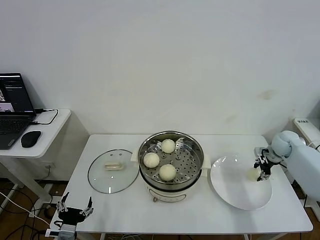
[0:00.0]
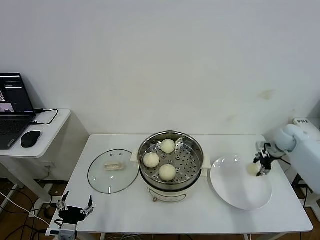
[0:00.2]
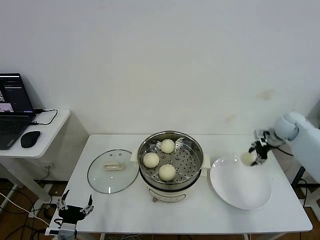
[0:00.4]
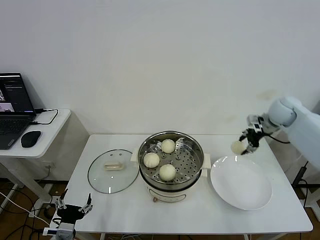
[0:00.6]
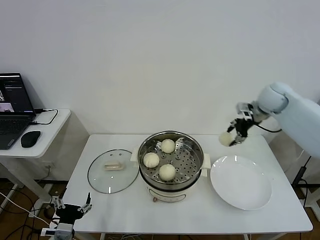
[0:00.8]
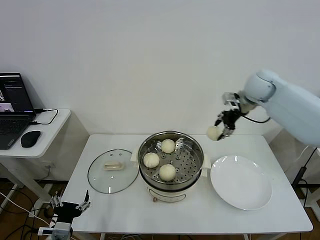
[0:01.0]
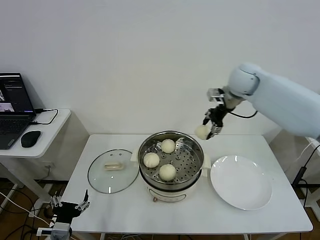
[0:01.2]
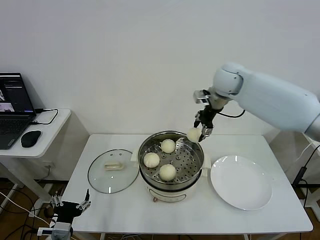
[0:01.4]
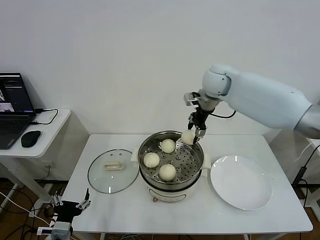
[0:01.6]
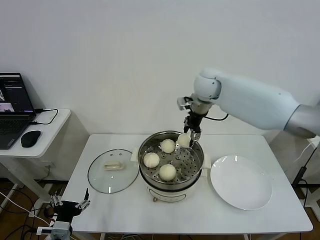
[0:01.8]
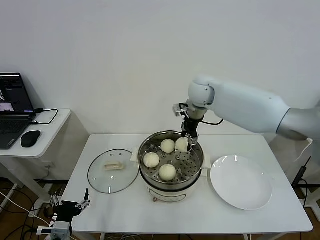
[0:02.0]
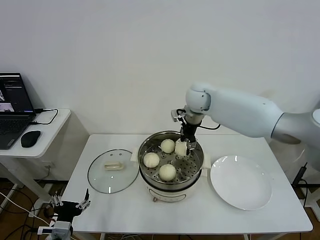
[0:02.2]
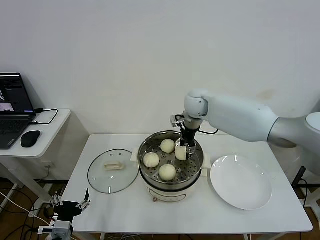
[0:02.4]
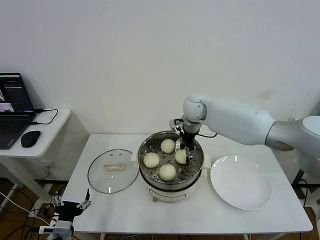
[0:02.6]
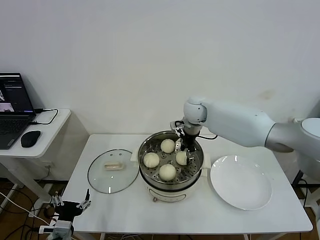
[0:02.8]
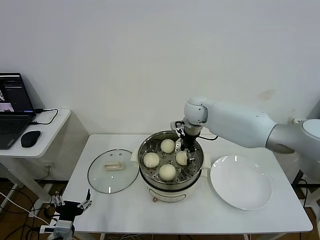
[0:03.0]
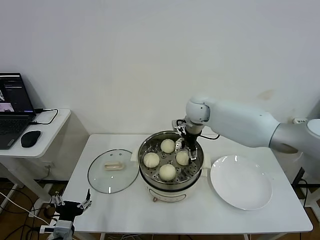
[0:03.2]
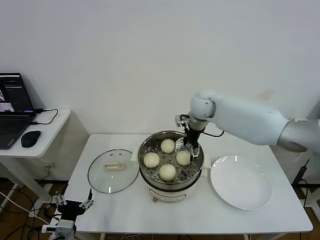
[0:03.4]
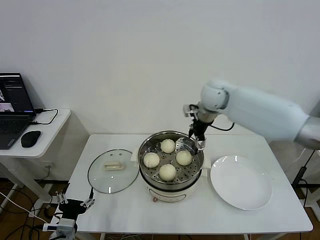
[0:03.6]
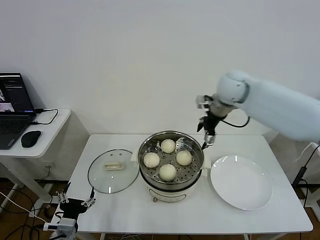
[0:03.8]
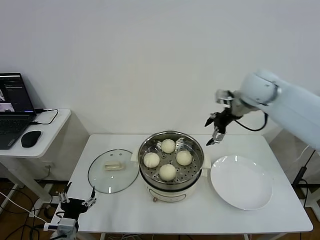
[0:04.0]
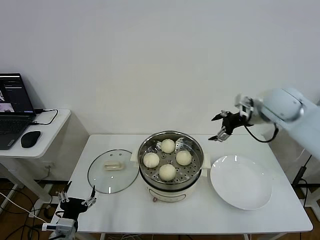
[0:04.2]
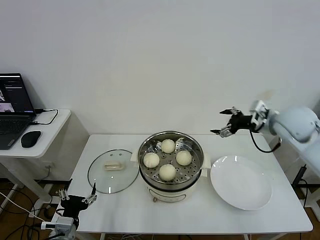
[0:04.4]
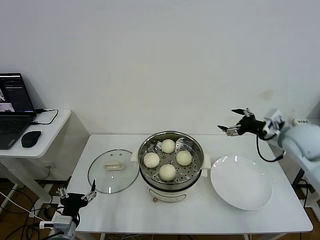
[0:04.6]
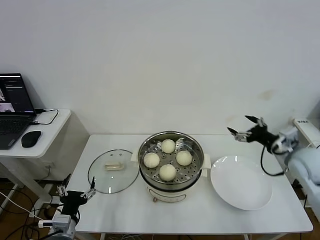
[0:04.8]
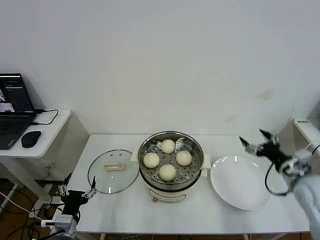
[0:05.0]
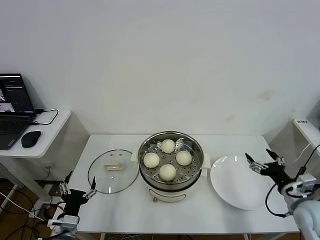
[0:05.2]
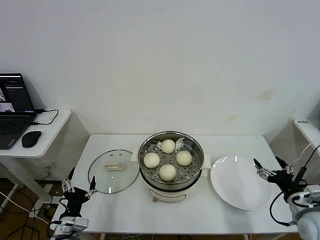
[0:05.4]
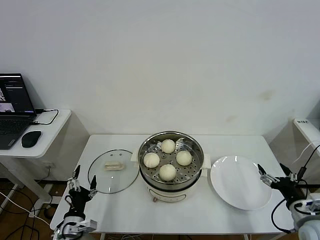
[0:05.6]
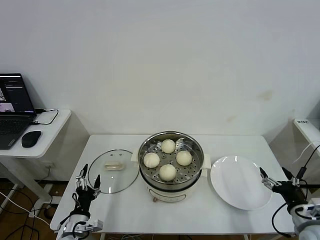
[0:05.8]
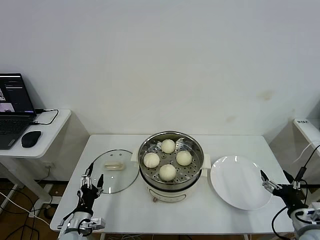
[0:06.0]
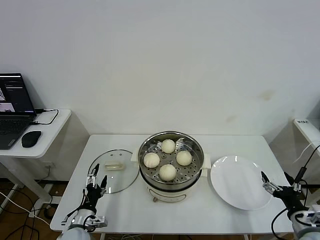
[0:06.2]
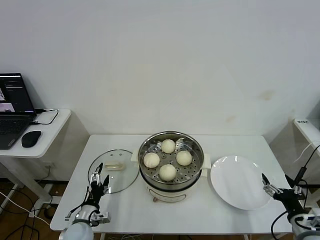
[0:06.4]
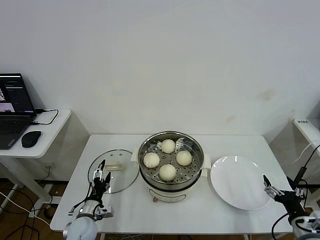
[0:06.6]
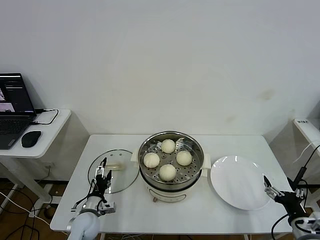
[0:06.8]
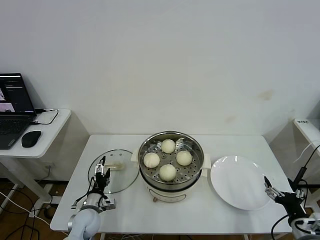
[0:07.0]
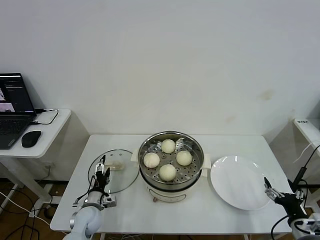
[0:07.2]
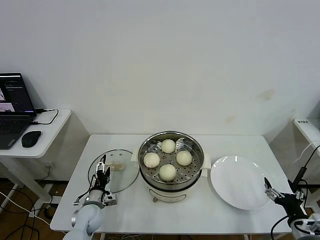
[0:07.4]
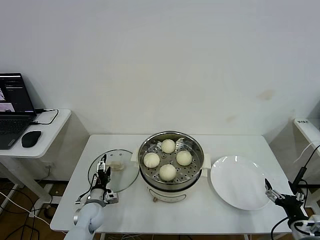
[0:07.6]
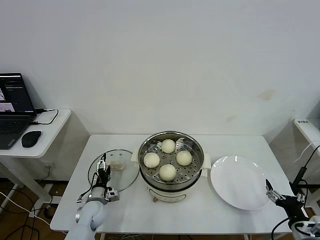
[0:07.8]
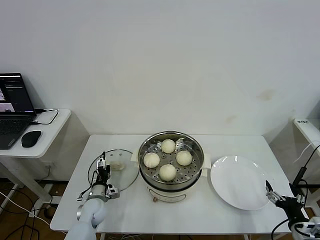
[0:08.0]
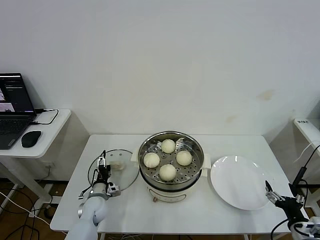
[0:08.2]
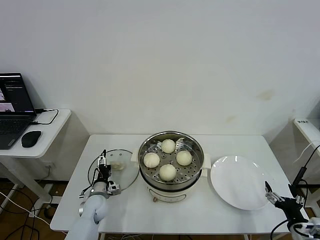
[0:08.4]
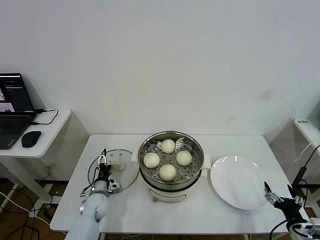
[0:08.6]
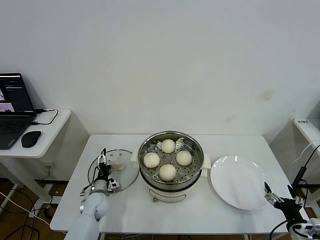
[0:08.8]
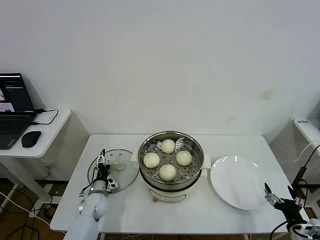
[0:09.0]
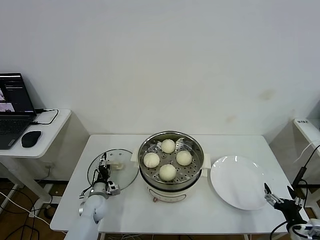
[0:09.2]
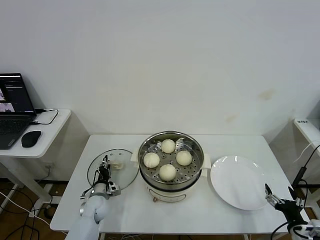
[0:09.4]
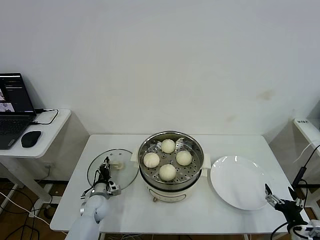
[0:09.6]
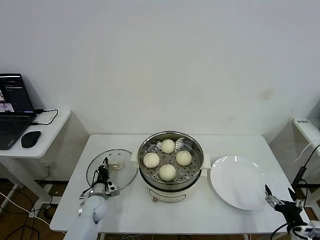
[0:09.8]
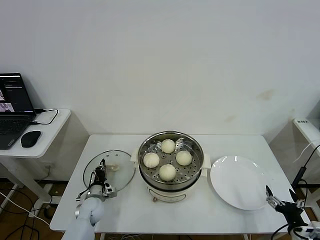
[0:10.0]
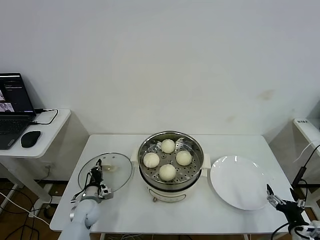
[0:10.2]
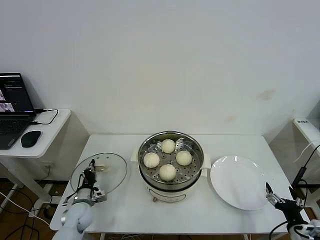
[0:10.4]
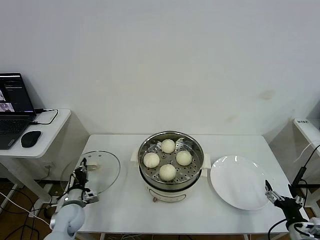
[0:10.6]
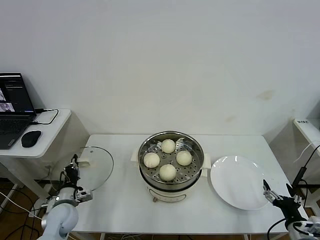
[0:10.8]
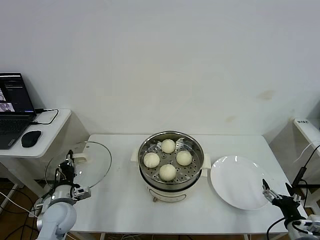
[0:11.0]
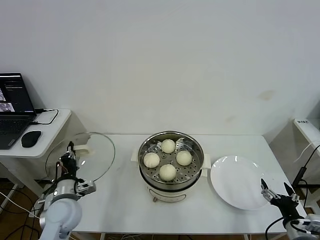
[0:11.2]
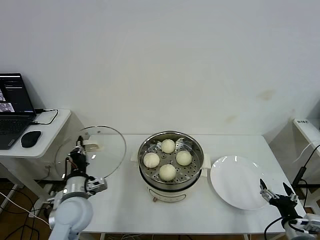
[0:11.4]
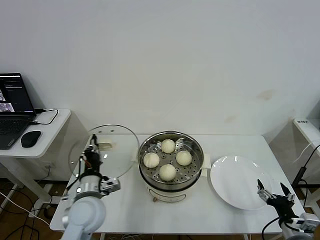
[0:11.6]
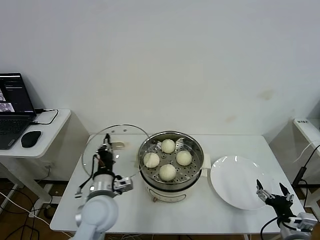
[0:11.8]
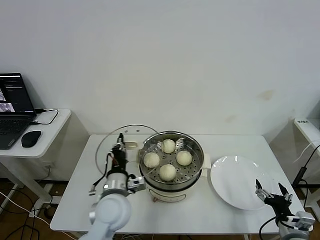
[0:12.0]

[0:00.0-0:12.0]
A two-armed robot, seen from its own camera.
Step, 0:00.0 to 0:03.2: Place the baozi on the steamer with right gripper.
Step, 0:03.4 to 0:09.8: Grasp the pot lid with left gripper.
0:00.0 to 0:01.6: The right gripper goes approximately 40 cm to the left and upward.
0:01.6 to 0:03.0: The right gripper shifts some 10 cm downward and to the left.
0:03.0 to 0:04.4: The right gripper is displaced to the right and backward by approximately 25 cm, and opens.
0:04.4 to 0:06.0: The right gripper goes some 35 cm backward and downward. Meanwhile the left gripper shifts roughly 10 cm downward and forward.
0:06.0 to 0:07.6: The left gripper heads forward, covering approximately 10 cm.
0:07.6 to 0:09.0: The grippers stay close to where they were, moving slightly.
0:09.0 to 0:10.4: The left gripper shifts by about 5 cm, and closes.
0:10.4 to 0:12.0: The left gripper is displaced upward and to the right by about 25 cm.

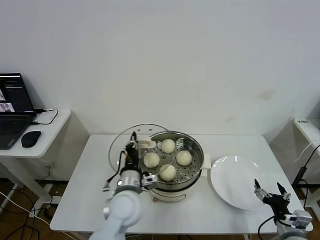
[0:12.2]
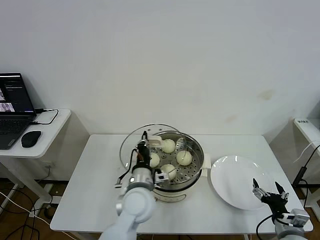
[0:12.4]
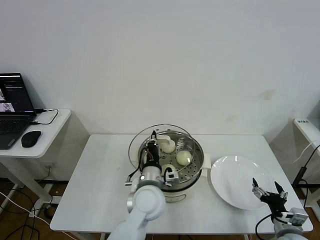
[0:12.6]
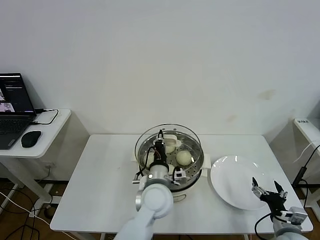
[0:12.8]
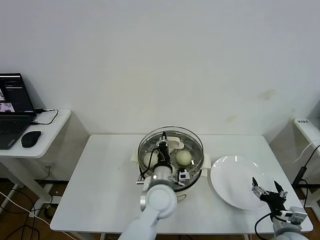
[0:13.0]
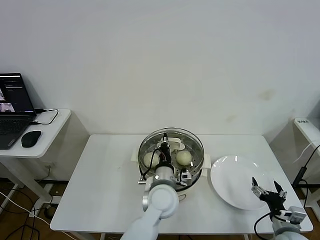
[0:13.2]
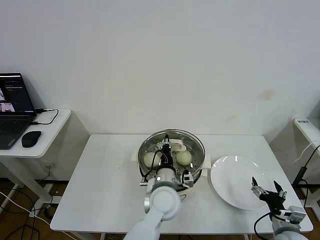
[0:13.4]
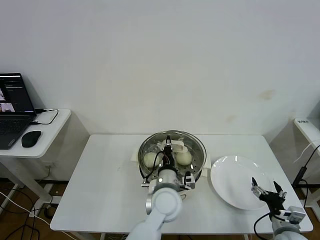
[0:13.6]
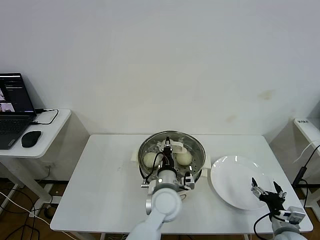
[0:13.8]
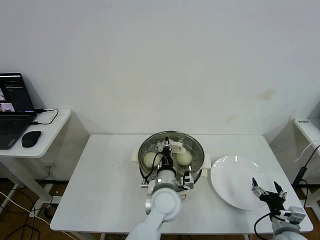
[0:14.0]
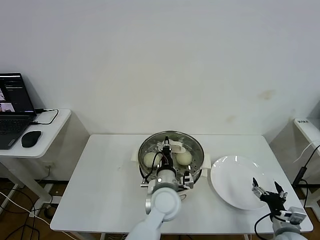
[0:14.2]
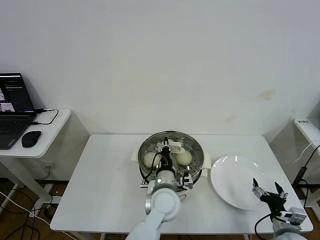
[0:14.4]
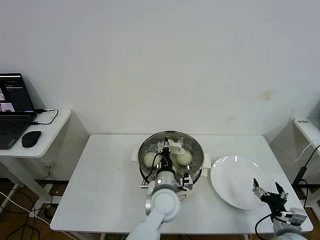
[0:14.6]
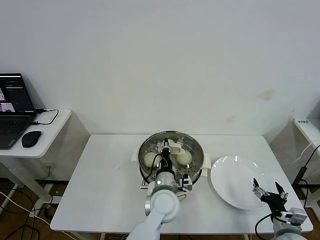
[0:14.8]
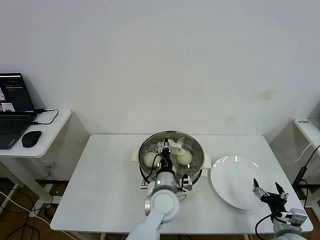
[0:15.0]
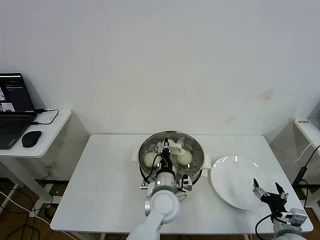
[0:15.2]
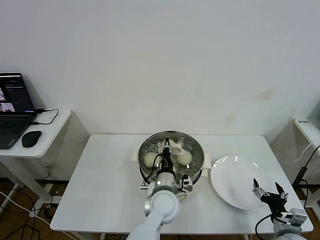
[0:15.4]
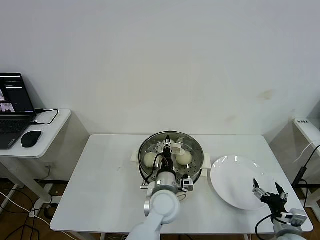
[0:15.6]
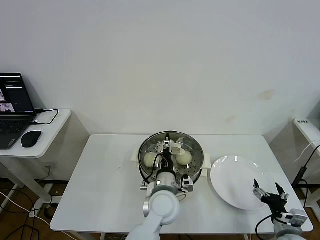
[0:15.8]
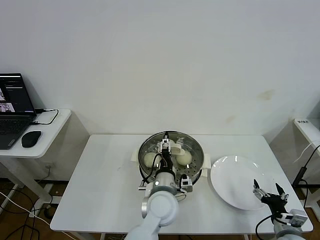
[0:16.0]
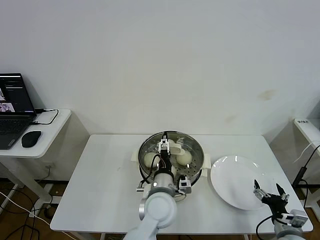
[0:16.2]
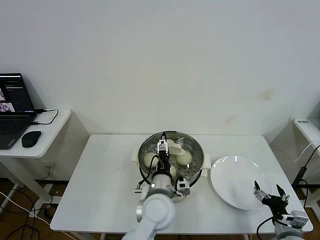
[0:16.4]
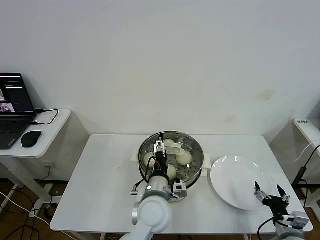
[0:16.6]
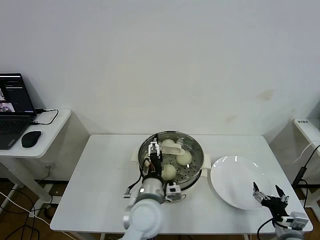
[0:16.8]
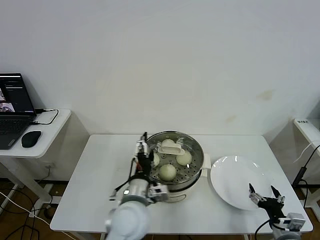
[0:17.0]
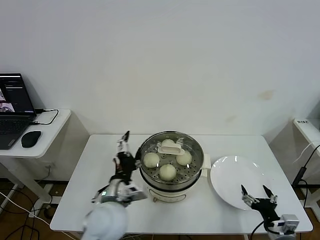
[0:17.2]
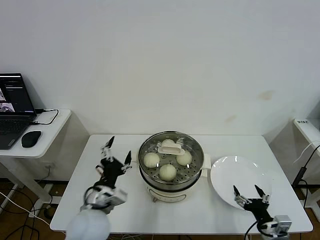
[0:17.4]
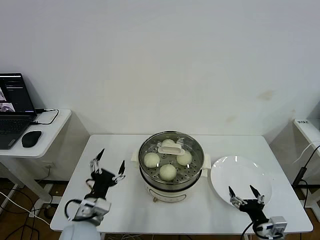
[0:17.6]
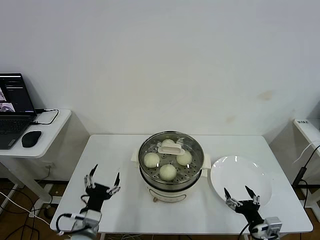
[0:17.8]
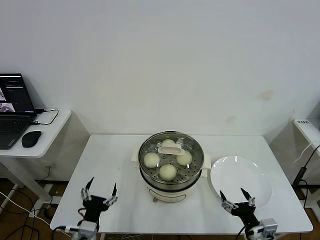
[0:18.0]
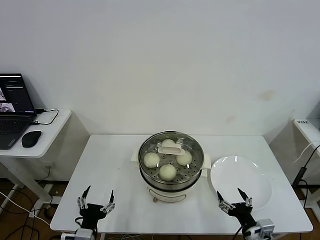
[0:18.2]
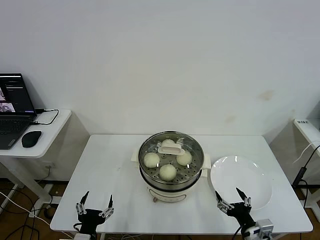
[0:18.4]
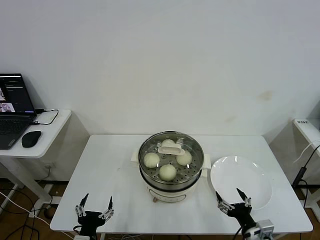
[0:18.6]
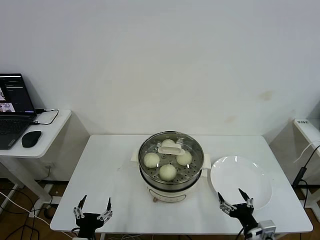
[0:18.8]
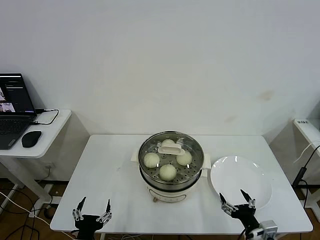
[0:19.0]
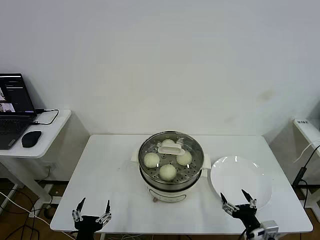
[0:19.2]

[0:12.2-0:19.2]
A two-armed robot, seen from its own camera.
Step, 0:12.2 to 0:15.8: Place the pot lid on the steamer with left gripper.
0:12.2 to 0:13.6: The left gripper heads to the right, covering approximately 10 cm.
0:13.6 to 0:15.0: The grippers stay close to where they were, moving slightly.
0:15.0 to 0:16.4: The left gripper opens its fingers.
0:16.4 to 0:17.8: The right gripper travels to the left by roughly 5 cm; the left gripper is displaced to the left by approximately 20 cm.
0:17.8 to 0:19.2: The left gripper goes about 10 cm backward.

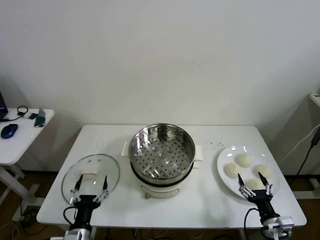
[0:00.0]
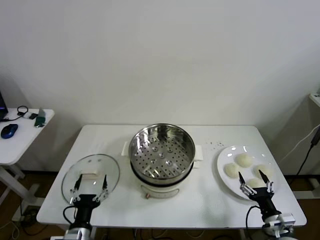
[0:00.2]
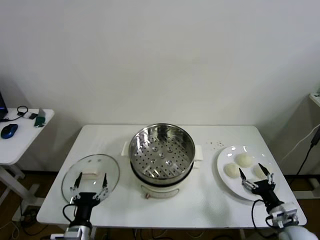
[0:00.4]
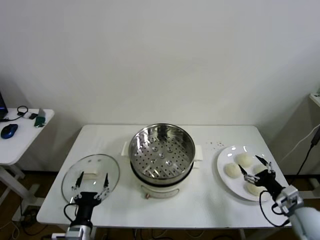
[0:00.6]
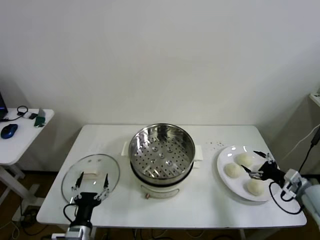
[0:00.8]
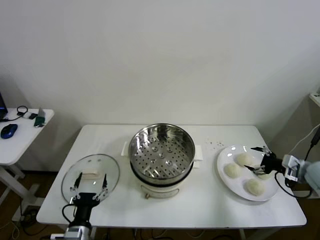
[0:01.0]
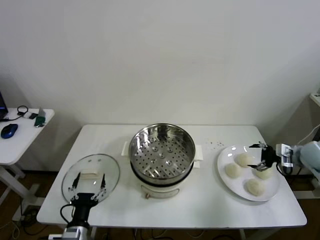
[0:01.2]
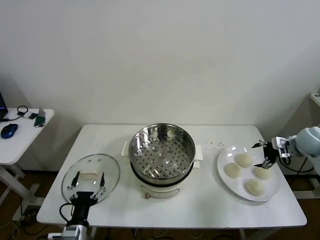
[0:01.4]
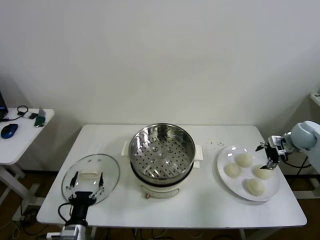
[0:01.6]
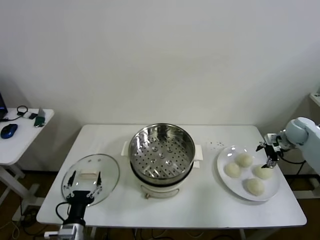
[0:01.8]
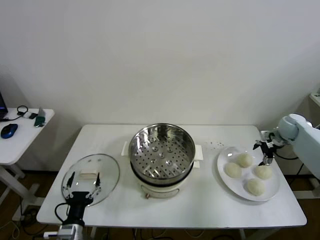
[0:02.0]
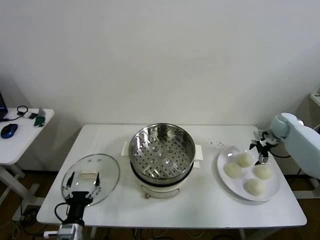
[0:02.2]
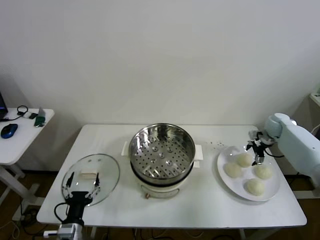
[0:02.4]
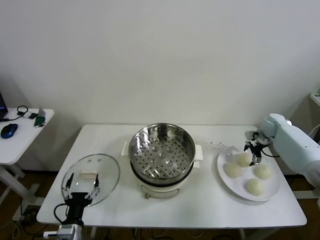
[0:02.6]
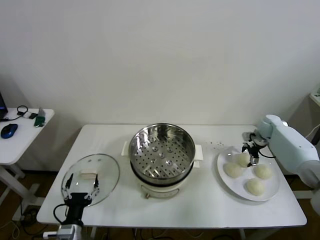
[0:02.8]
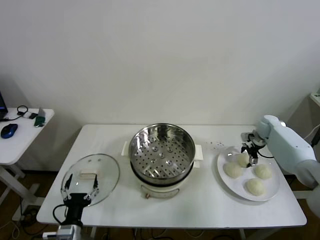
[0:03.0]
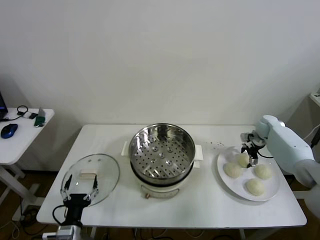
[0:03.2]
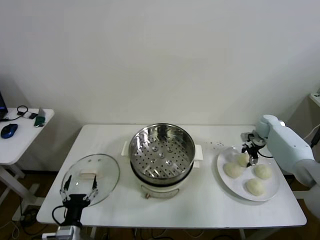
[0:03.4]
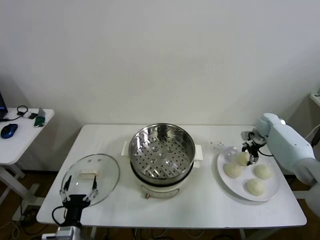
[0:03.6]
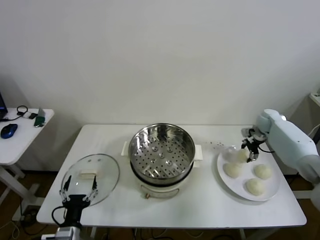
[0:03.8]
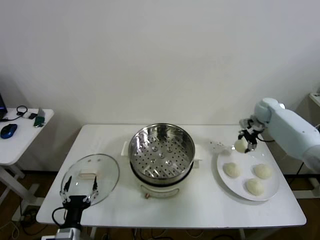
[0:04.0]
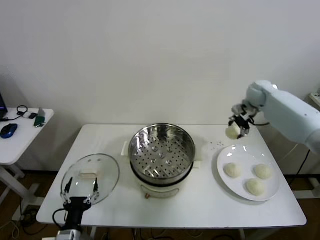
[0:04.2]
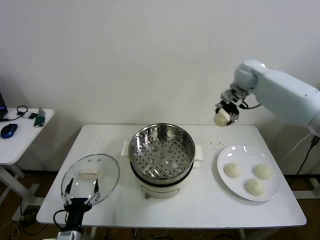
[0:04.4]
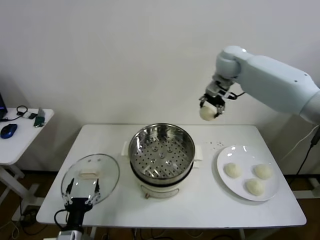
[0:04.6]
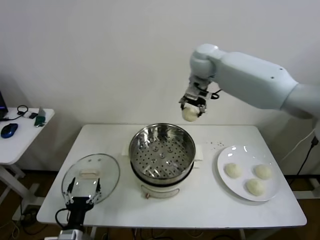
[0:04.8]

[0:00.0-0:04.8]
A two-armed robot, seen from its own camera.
Step, 0:00.0 to 0:03.4: Grasp the baozi in the plate with right gripper.
0:01.6 to 0:03.2: The right gripper heads forward, downward and to the left, covering about 15 cm.
0:03.2 to 0:04.8: The right gripper goes about 40 cm to the left and upward, and closes its fingers.
